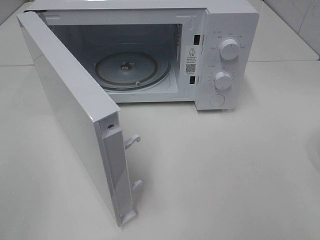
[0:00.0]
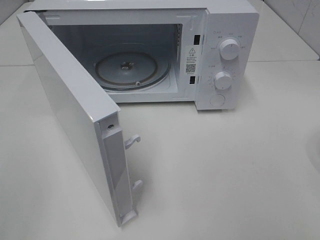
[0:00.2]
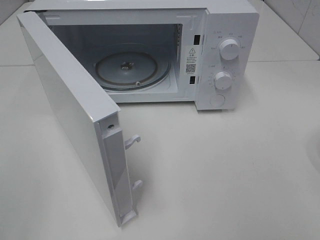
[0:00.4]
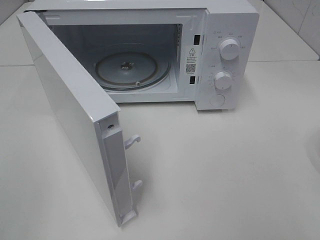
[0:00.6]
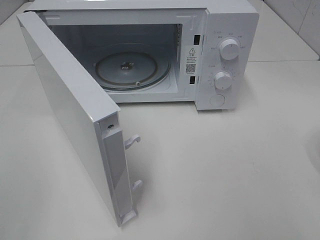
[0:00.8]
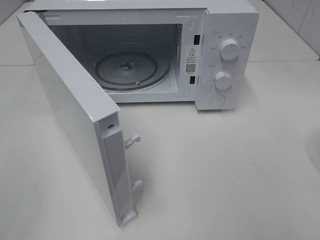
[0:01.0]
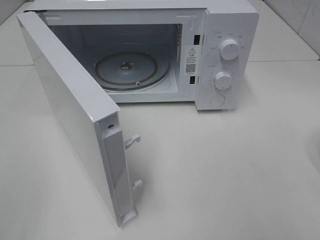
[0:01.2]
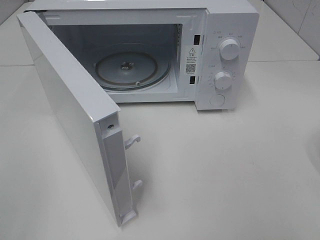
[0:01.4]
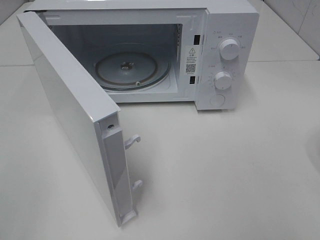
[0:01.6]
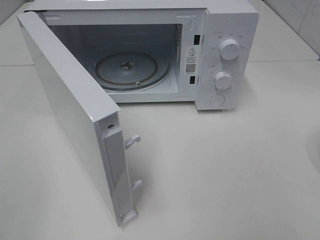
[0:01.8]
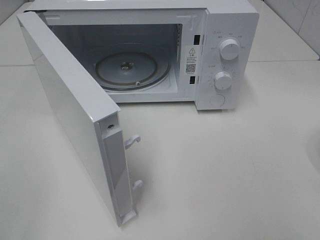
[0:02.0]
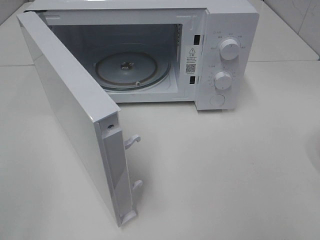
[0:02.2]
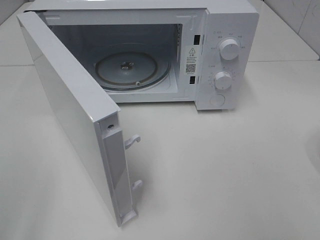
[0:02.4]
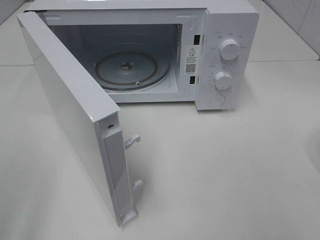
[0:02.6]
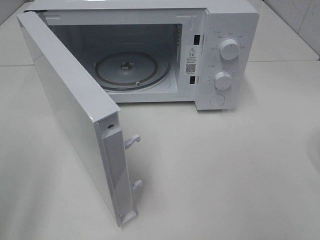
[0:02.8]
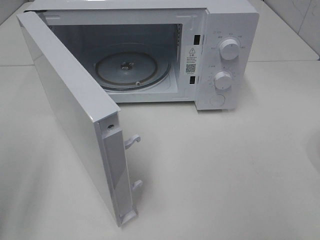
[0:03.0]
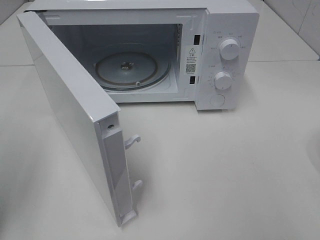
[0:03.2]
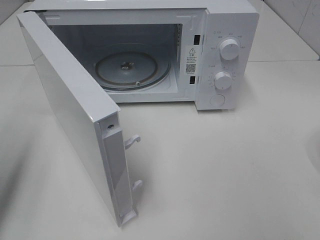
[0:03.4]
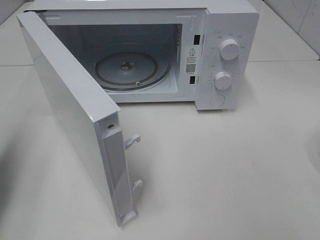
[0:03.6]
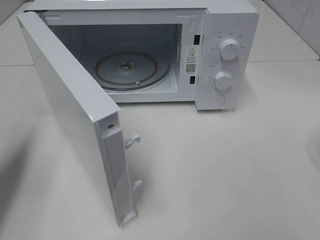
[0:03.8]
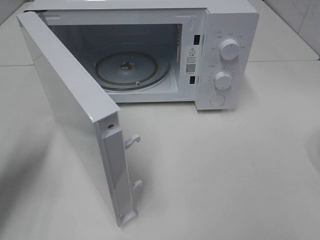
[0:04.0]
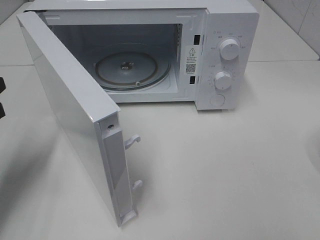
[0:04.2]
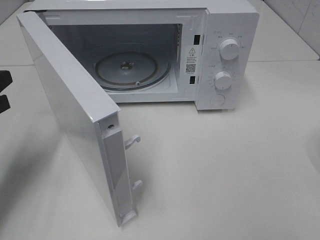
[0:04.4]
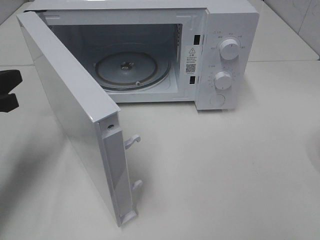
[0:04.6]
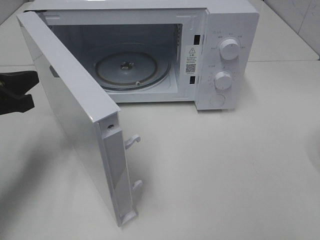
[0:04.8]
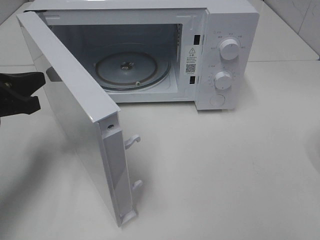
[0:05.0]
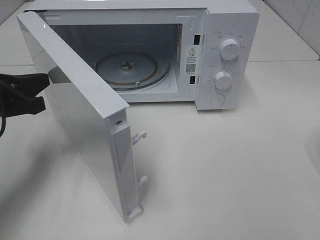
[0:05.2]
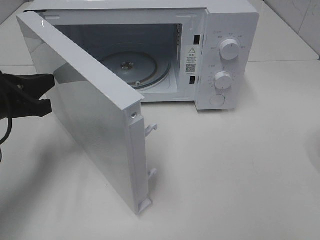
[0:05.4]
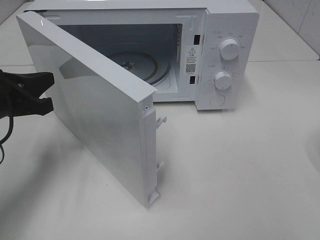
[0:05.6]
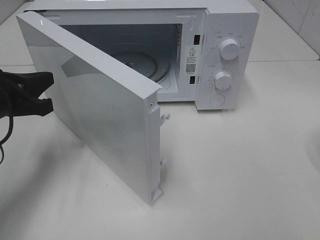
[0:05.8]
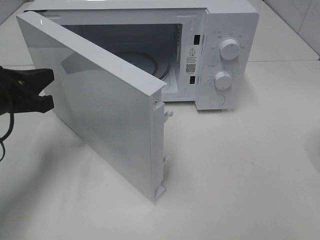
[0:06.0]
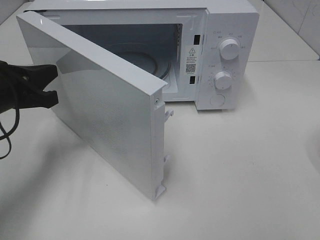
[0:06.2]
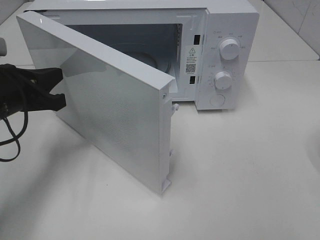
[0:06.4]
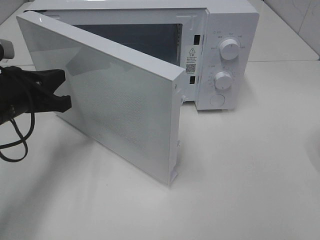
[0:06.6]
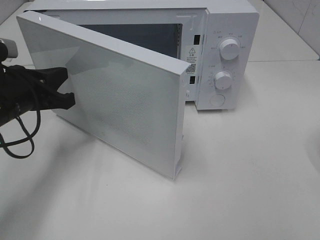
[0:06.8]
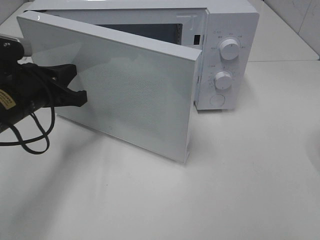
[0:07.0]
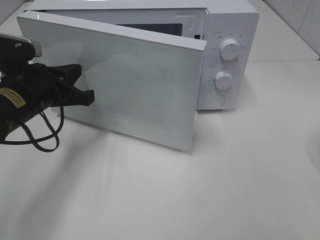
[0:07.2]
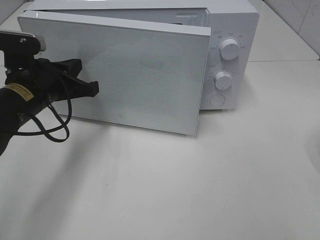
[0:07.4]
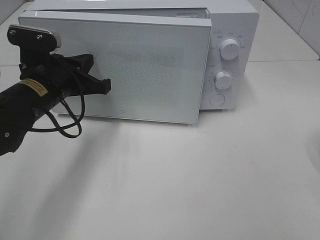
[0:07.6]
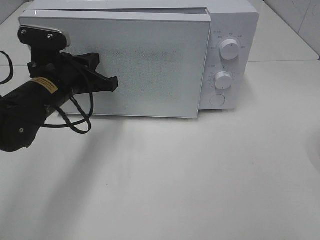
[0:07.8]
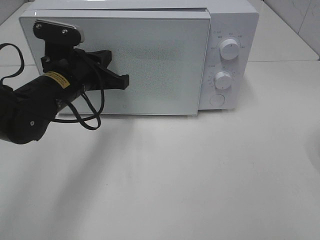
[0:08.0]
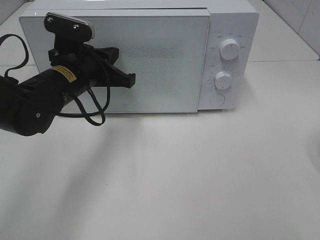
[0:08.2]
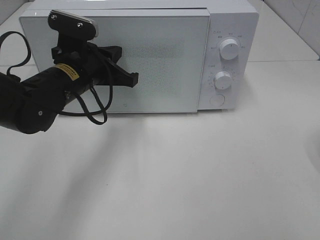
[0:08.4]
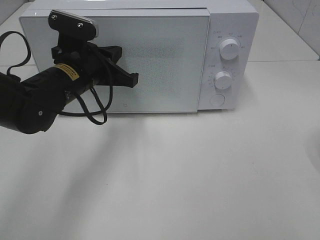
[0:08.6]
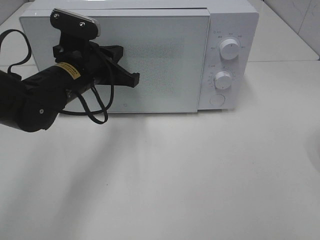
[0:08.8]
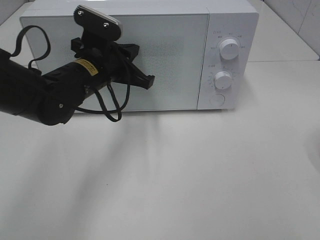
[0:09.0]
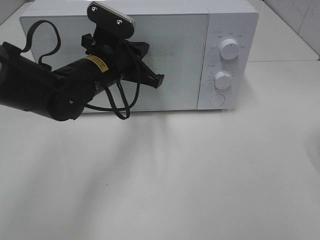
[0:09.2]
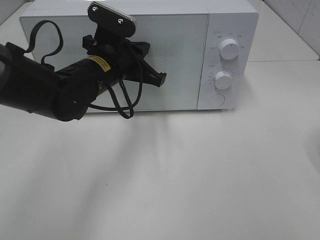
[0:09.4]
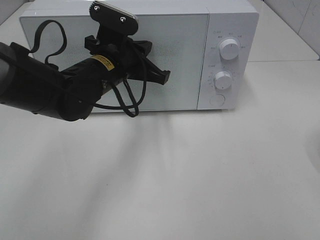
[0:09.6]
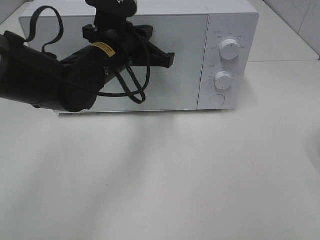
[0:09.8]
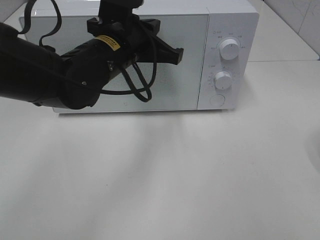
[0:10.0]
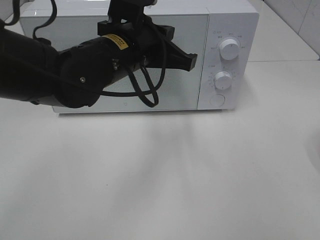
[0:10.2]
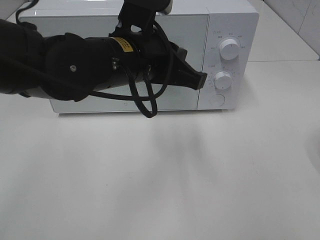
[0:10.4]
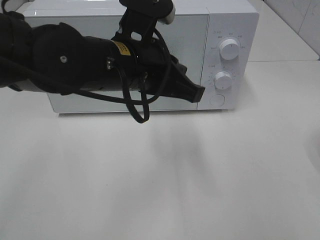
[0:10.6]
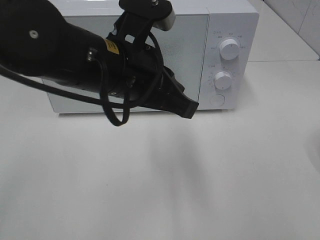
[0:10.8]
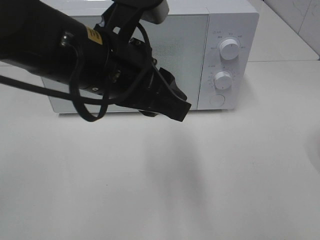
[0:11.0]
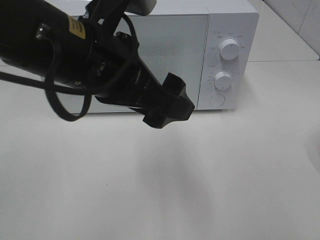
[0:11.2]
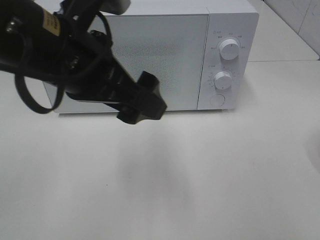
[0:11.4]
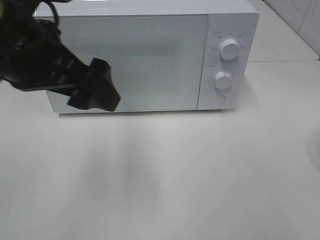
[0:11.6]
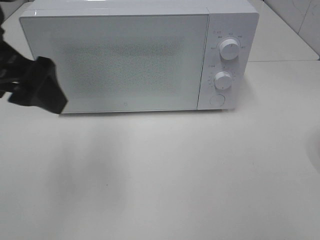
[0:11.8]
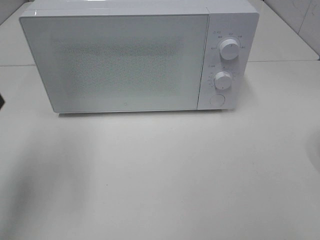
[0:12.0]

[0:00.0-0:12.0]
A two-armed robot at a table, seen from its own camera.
Task of the whole recording: Heat the burger.
Step, 0.0 to 9.2 s: Left hand: close the microwave door.
3.0 to 4.4 s: The left gripper is displaced forward and downward by approximately 15 cm, and closes its fingers.
4.4 to 6.0 s: The left gripper moves roughly 5 cm.
6.0 to 7.6 s: The left gripper goes approximately 10 cm to the right.
7.6 to 9.0 s: The left gripper goes some 5 cm to the right.
9.0 to 10.4 s: The left gripper heads backward, to the right and upward, covering some 10 cm.
10.4 to 12.0 s: The left gripper goes some 25 cm to the left and upward, and opens up.

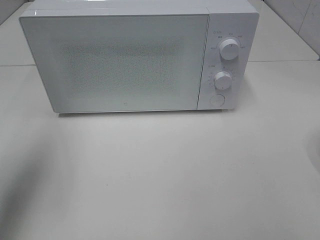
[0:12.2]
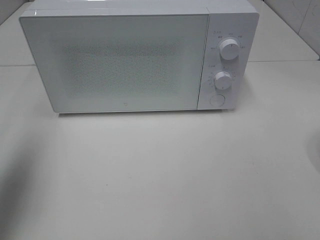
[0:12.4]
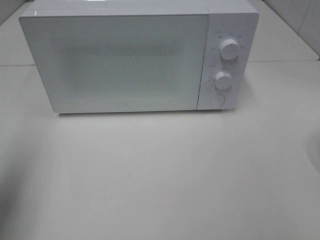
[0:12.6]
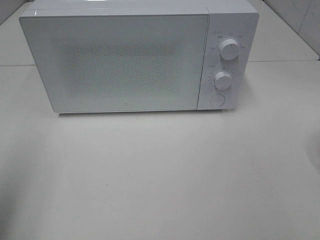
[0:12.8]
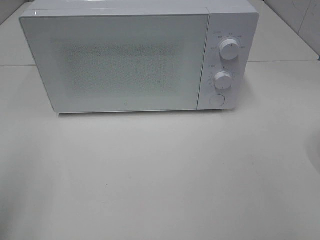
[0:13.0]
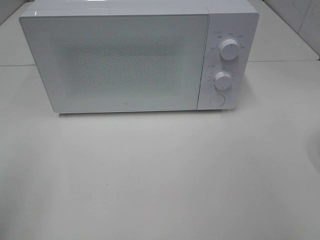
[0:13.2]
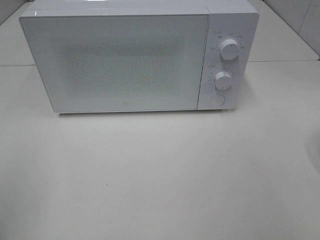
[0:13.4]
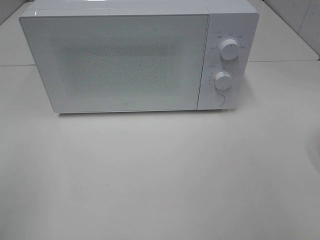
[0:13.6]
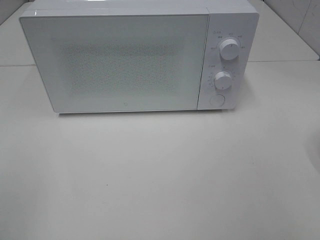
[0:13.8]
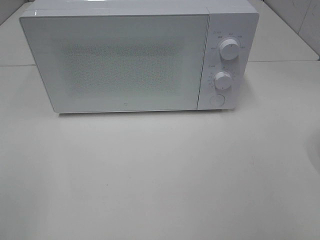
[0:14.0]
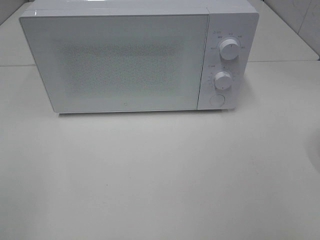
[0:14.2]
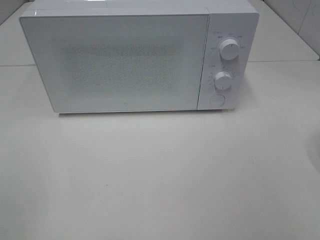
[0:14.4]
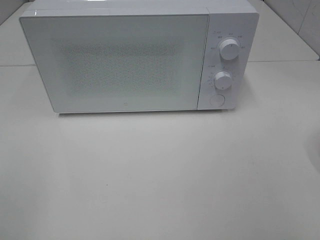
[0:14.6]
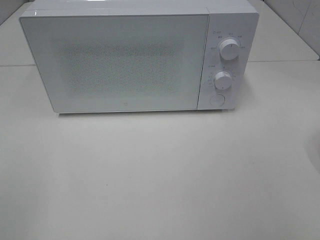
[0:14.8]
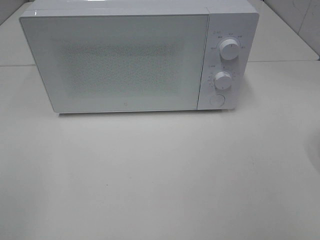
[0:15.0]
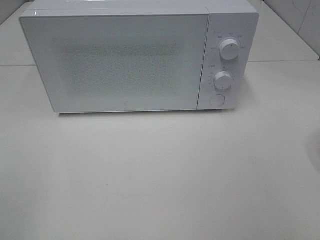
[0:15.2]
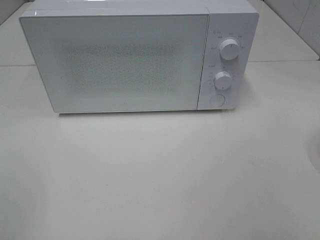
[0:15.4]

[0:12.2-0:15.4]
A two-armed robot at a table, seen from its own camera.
Task of the whole recording: Heat the burger.
12.2 to 13.8 s: The left gripper moves backward, roughly 20 cm.
13.8 to 15.4 s: Both grippers stay put.

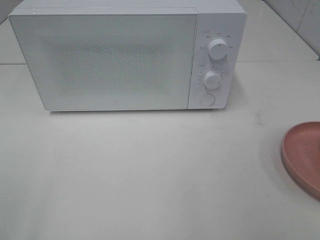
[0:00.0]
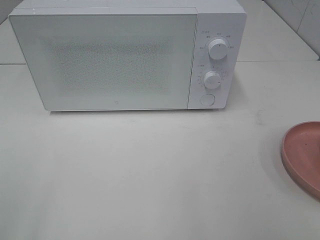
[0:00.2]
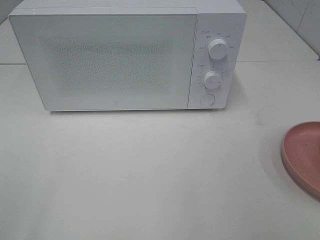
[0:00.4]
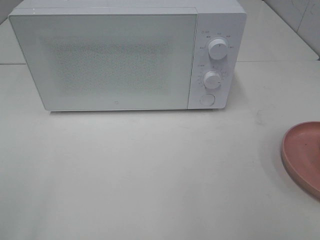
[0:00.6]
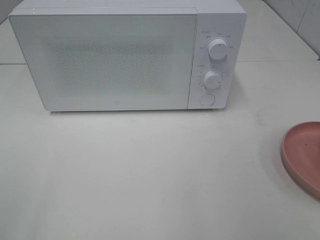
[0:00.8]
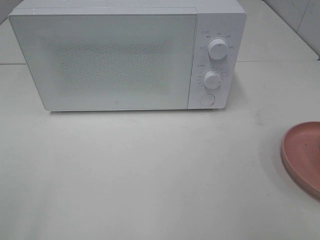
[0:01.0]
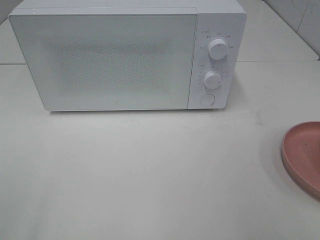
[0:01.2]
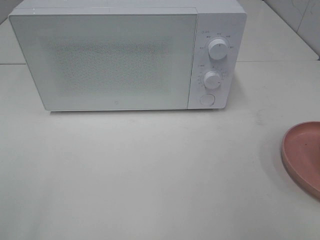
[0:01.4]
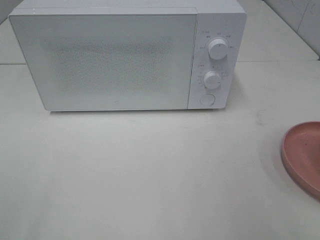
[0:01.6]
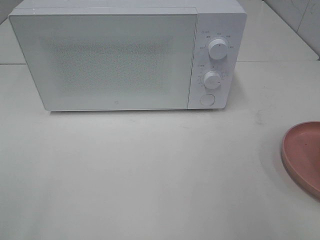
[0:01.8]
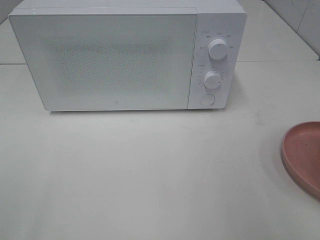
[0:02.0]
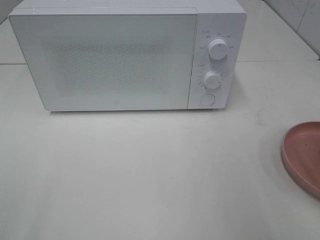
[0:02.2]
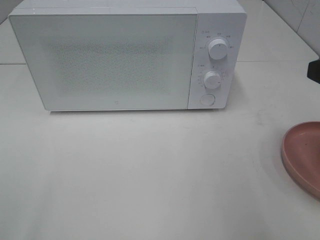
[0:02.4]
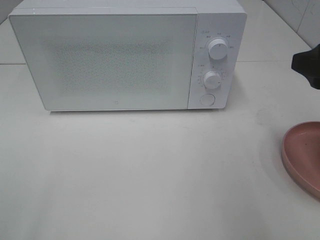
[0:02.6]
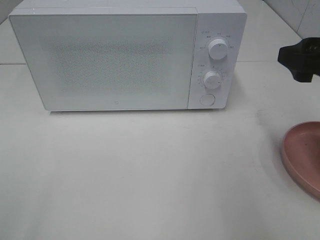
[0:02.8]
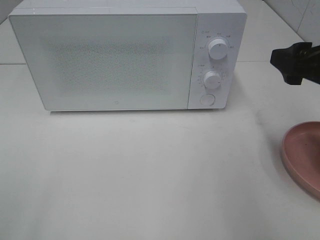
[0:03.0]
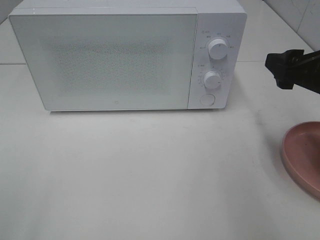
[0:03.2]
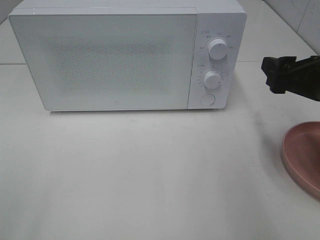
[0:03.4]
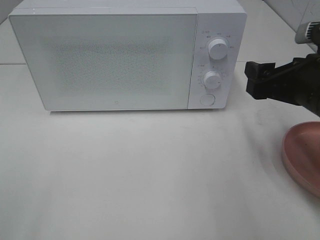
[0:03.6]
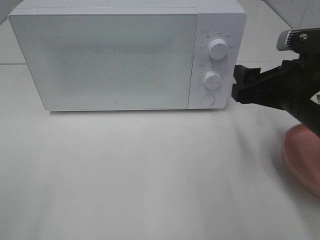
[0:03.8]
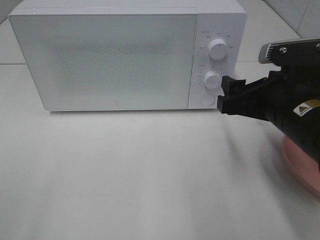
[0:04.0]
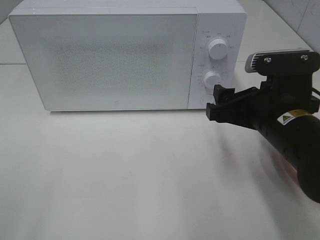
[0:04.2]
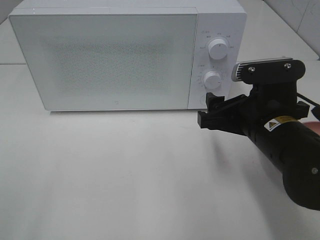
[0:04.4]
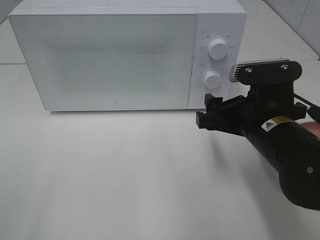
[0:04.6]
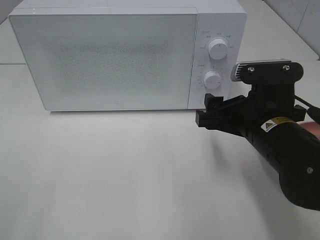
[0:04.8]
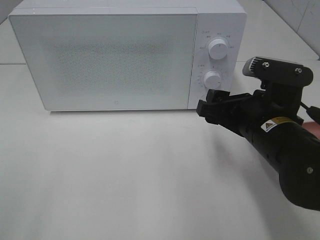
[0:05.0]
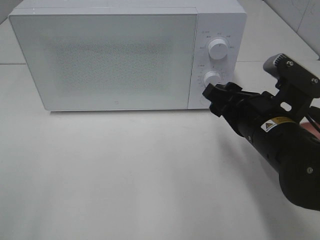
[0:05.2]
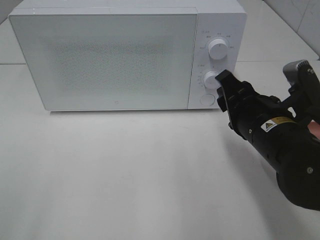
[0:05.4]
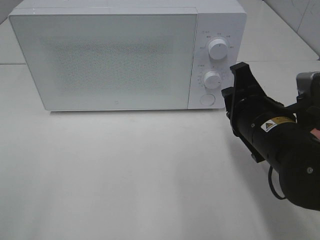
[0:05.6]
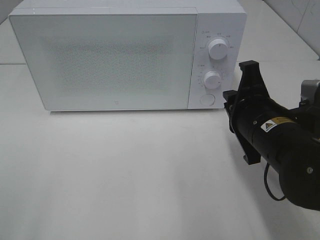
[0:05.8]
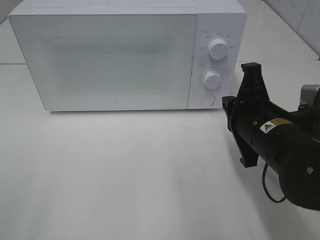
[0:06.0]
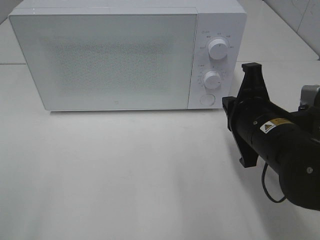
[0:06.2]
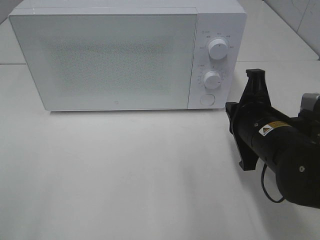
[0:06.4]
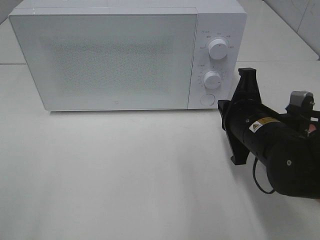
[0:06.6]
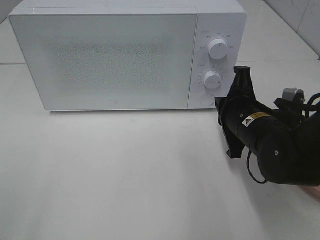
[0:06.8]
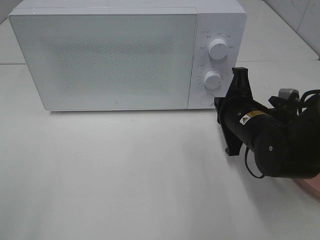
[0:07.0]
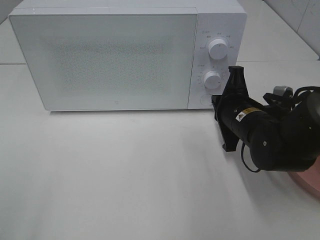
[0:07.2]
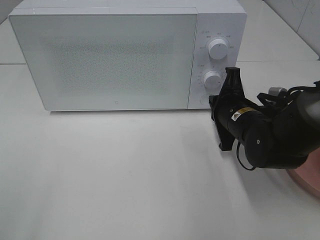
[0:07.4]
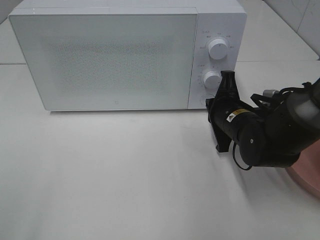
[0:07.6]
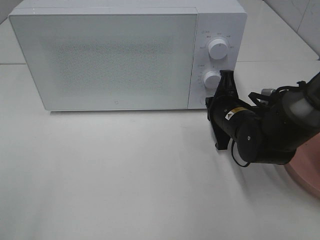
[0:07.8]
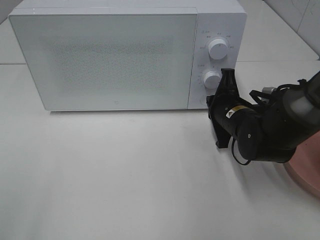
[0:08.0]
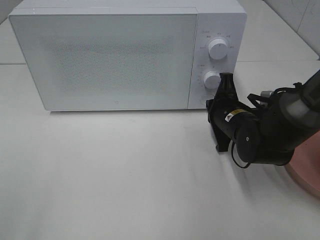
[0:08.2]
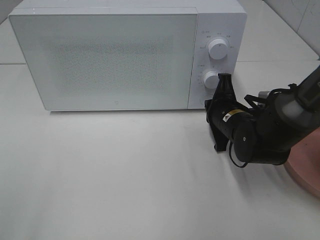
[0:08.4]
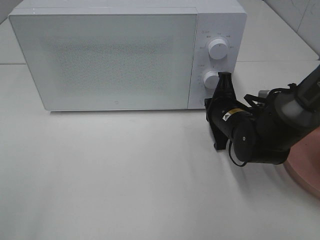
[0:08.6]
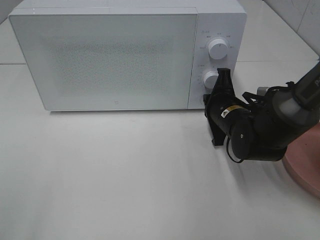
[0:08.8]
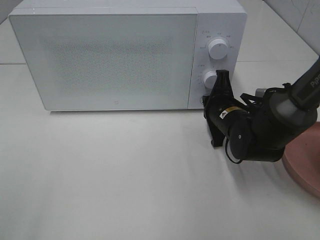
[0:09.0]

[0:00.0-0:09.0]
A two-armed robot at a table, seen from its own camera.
Task of the whole recording: Heat the burger.
1.6 to 3.0 s: The right gripper travels forward and downward by some 15 cm.
3.0 to 4.4 s: The right gripper shifts about 15 cm to the left and downward.
4.4 to 6.0 s: The right gripper closes.
6.0 to 7.6 s: The right gripper is displaced forward and downward by some 10 cm.
7.6 to 9.0 s: The grippers move only a little.
